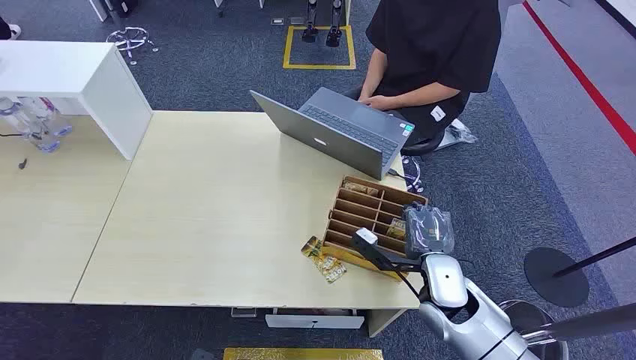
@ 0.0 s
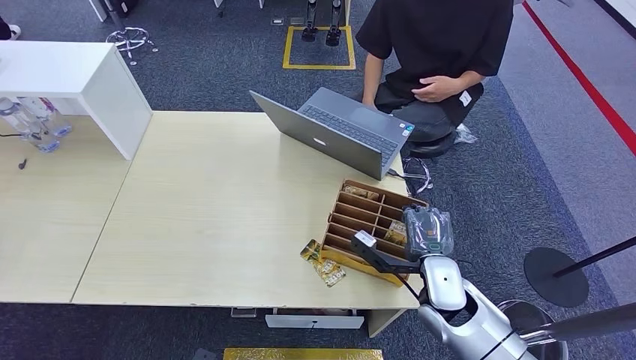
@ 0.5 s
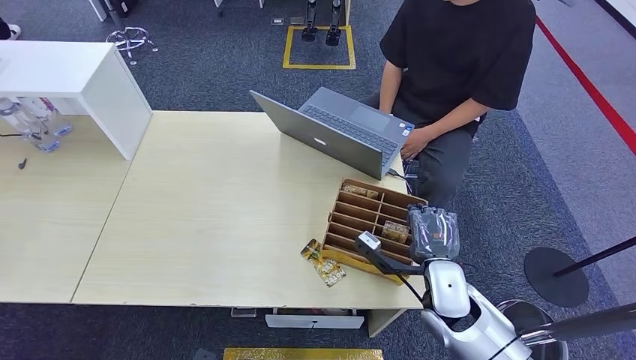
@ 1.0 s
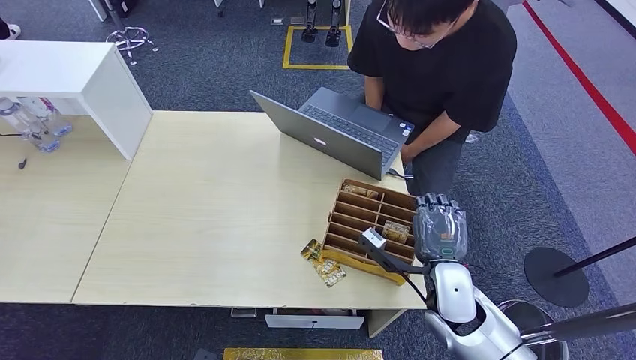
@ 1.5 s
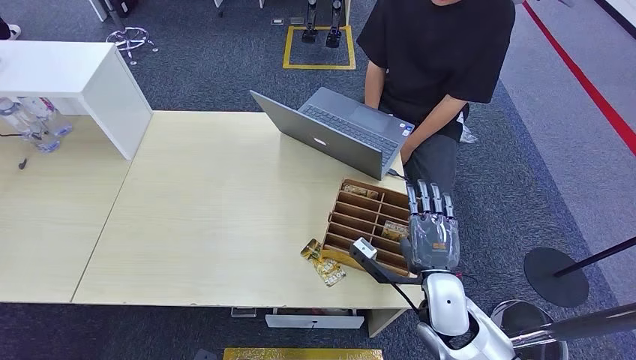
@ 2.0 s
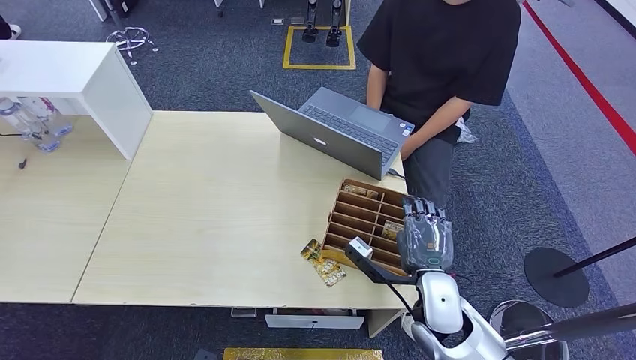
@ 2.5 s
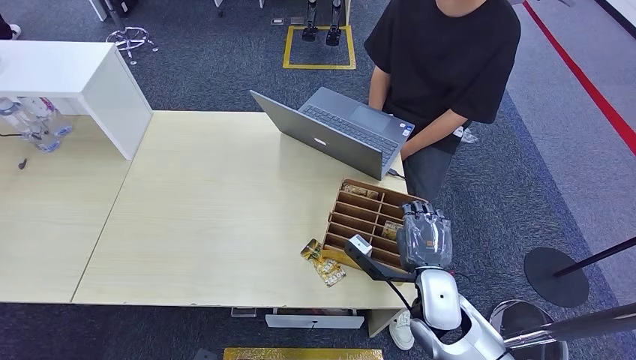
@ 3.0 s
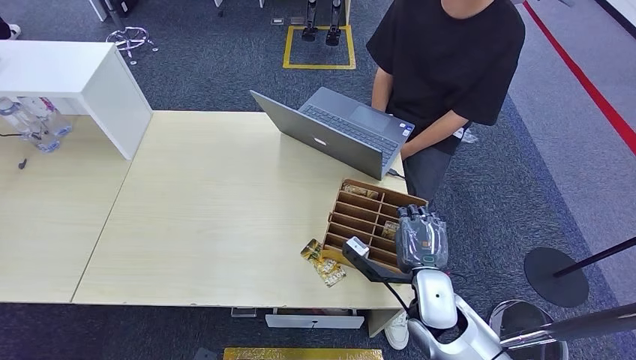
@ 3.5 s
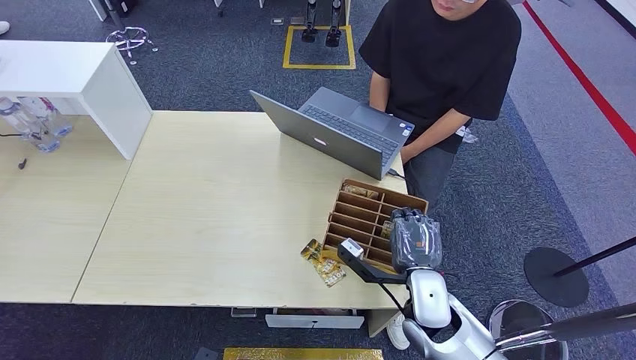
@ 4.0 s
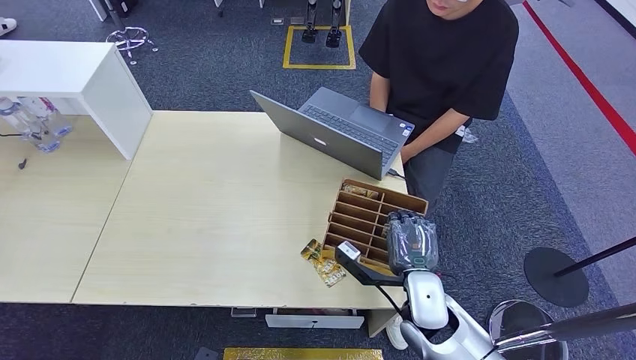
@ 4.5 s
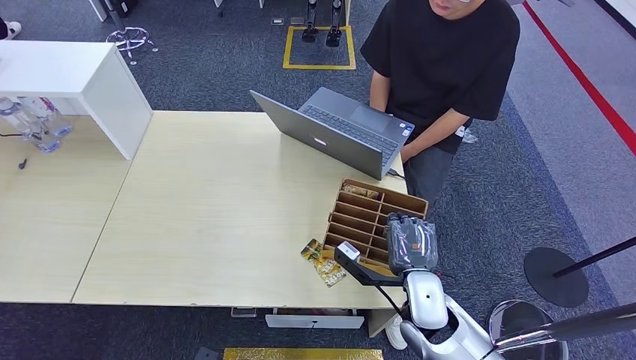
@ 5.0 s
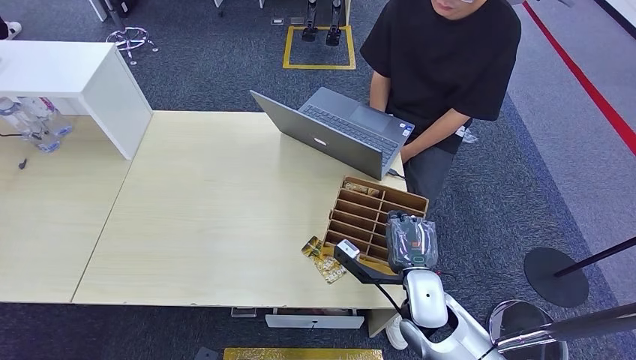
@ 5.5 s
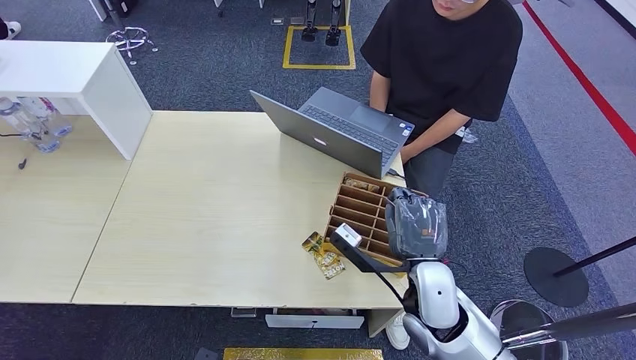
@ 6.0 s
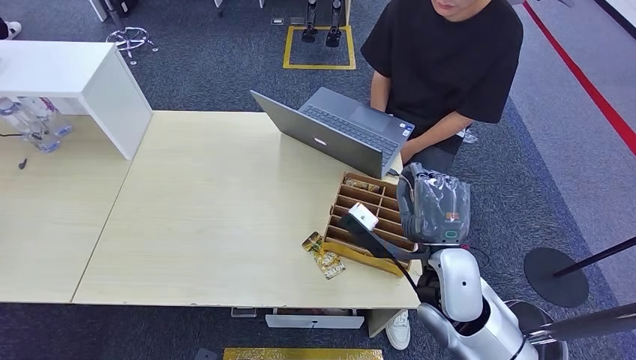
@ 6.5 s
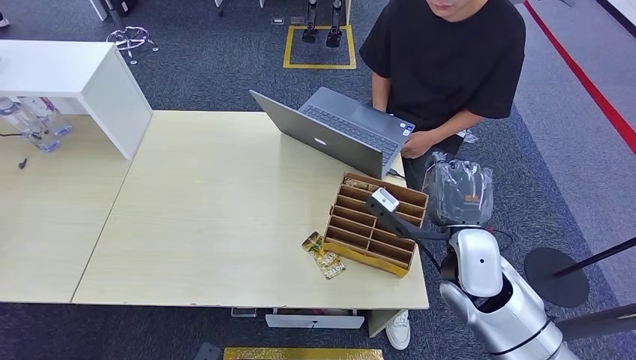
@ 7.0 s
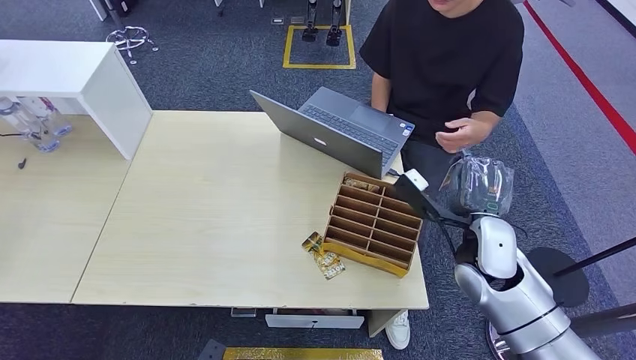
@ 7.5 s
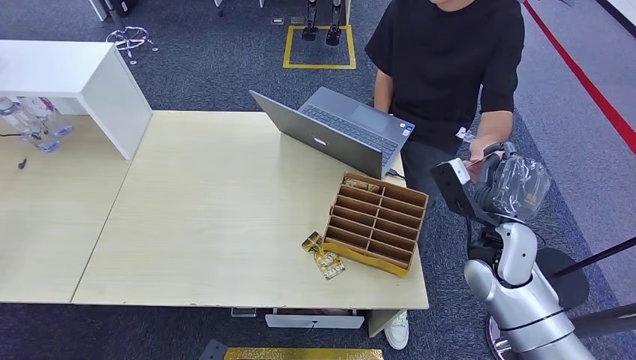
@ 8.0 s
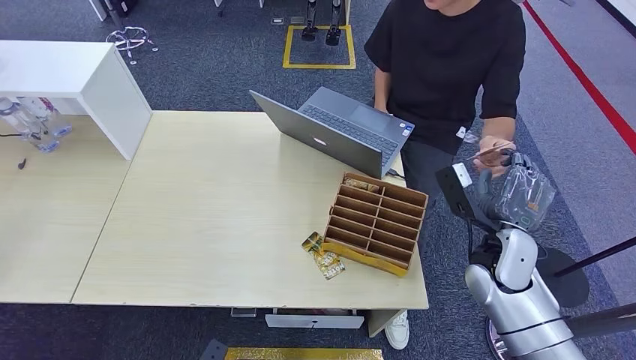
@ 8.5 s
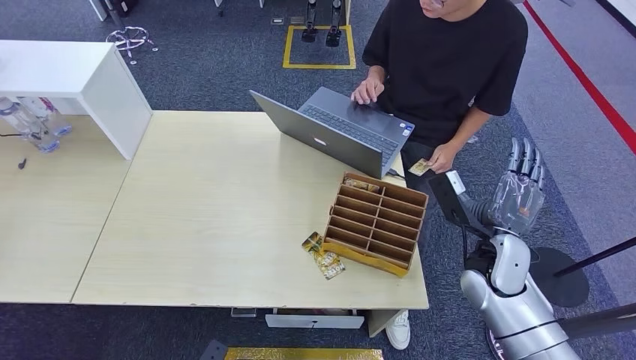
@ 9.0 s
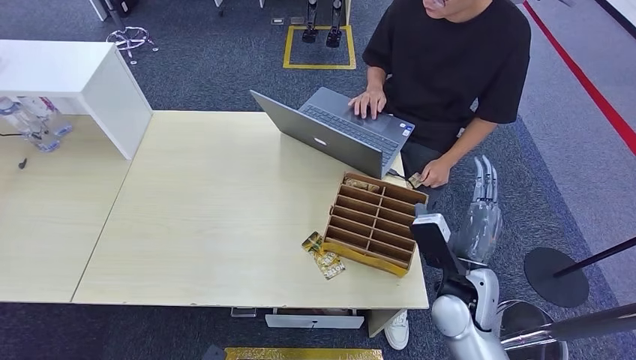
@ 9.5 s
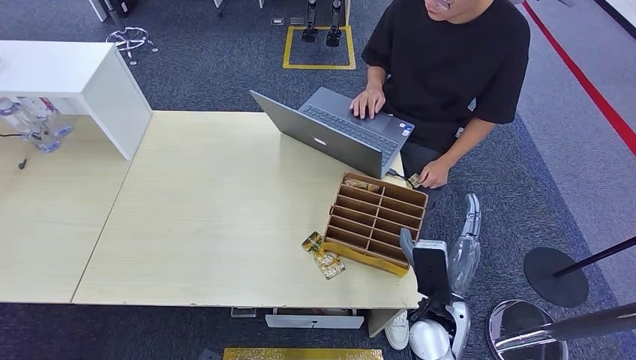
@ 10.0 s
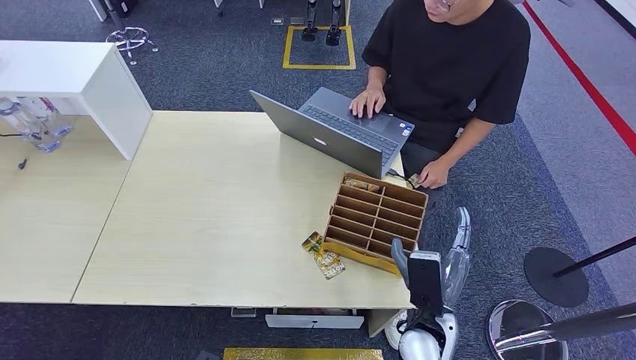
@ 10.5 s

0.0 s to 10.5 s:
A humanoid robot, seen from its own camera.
Step, 0.0 to 6.5 s: Pick up the key card from the card box.
Step, 7.0 to 10.0 s: Hand the key card to the target.
2.0 to 4.0 s: The hands make only small movements.
4.0 to 6.5 s: The right hand shifts some 10 cm upward.
6.5 to 8.5 s: The right hand heads to the right and forward, covering roughly 15 cm.
8.5 to 10.5 s: The right hand is displaced to the left, backward and downward by approximately 15 cm.

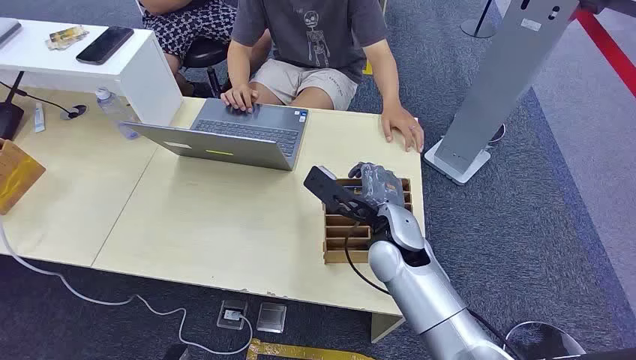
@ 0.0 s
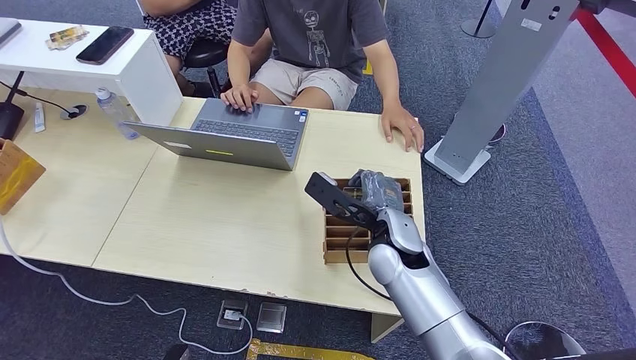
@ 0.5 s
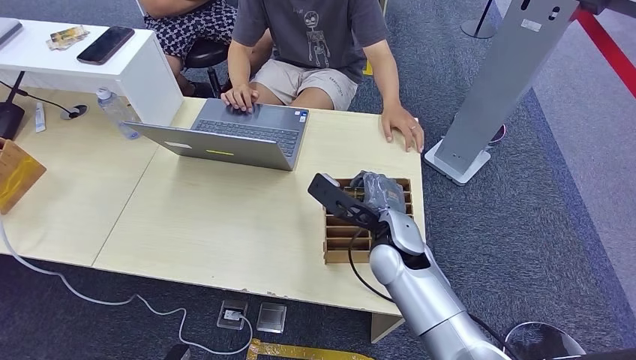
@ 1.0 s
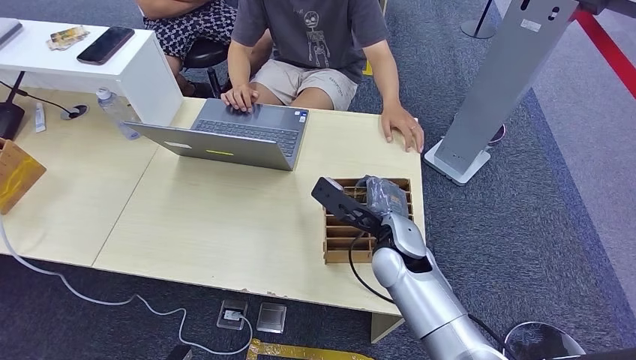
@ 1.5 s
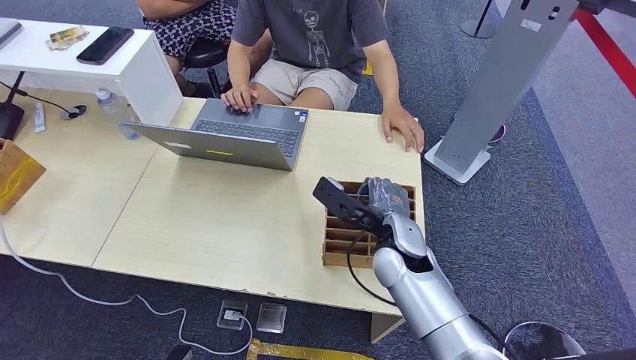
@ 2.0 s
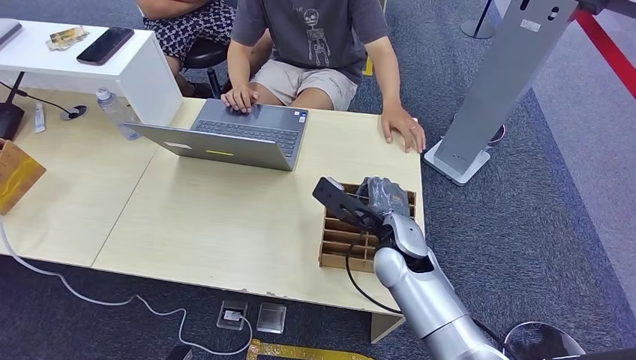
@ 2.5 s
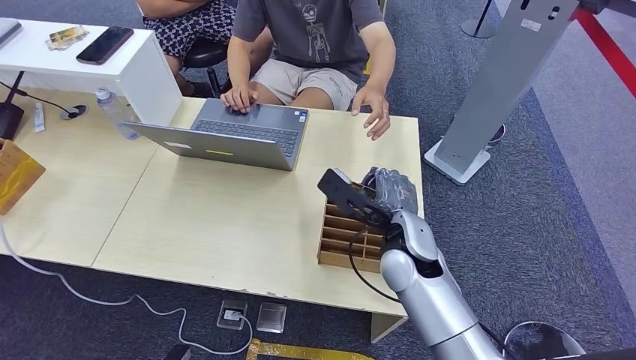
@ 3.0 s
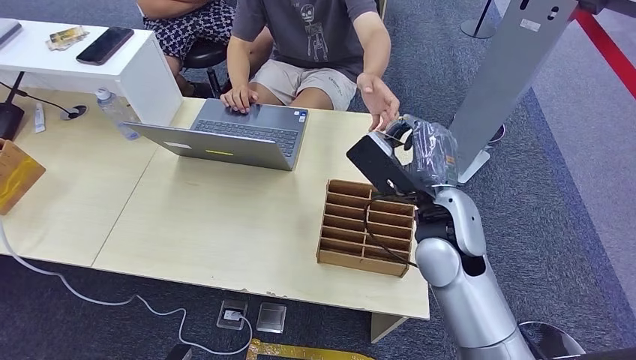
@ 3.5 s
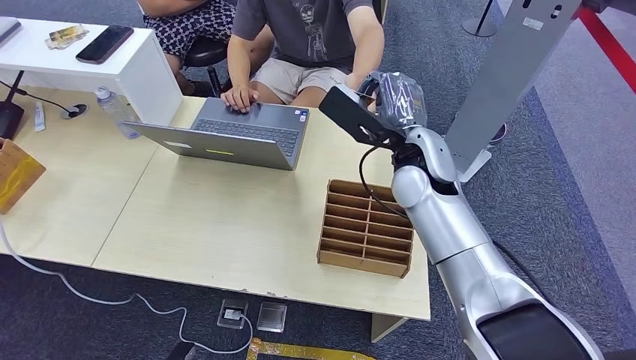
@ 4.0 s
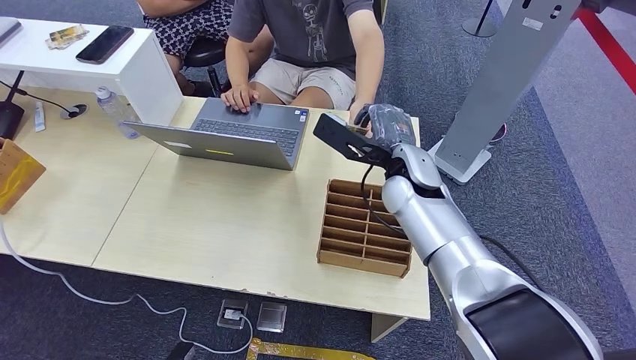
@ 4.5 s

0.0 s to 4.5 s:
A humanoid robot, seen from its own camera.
Step, 0.0 to 2.5 s: Pick up the key card from the card box.
Step, 3.5 to 4.5 s: Hand the key card to the target.
2.0 to 4.5 s: The right hand travels forward and upward by some 15 cm.
